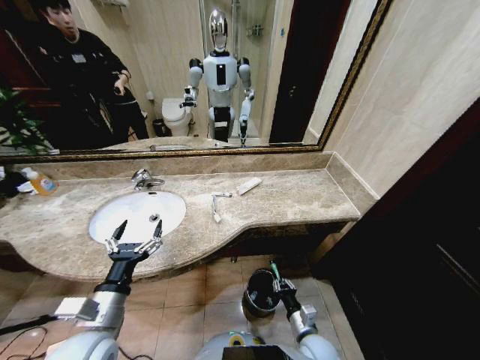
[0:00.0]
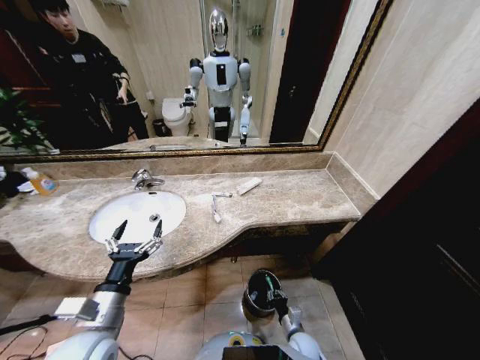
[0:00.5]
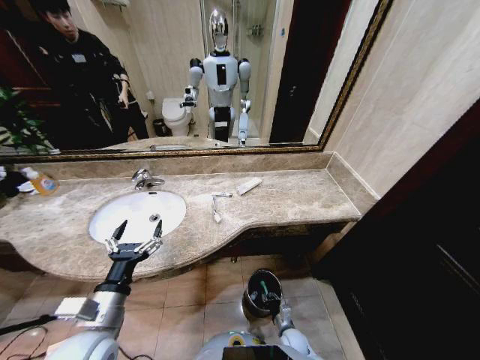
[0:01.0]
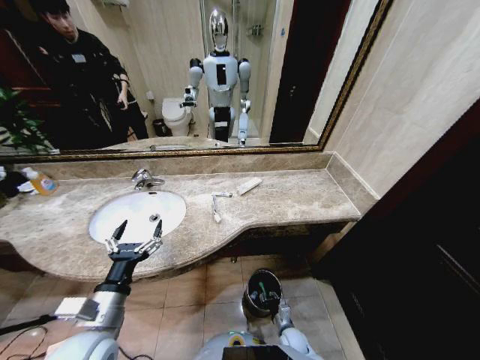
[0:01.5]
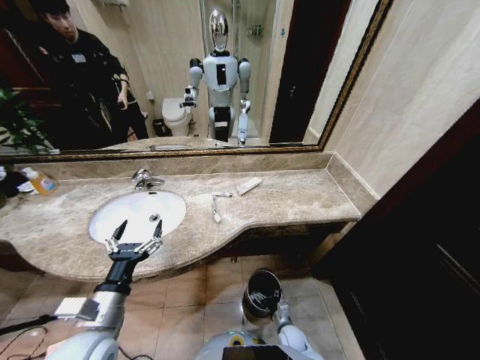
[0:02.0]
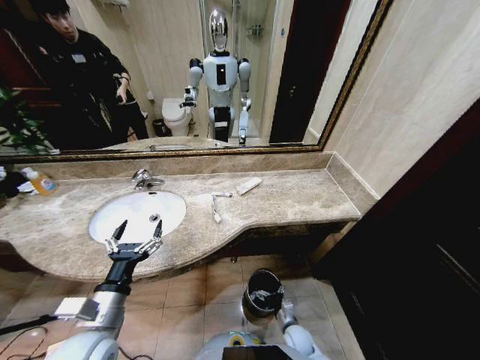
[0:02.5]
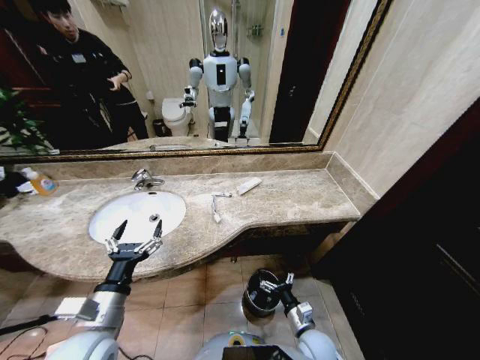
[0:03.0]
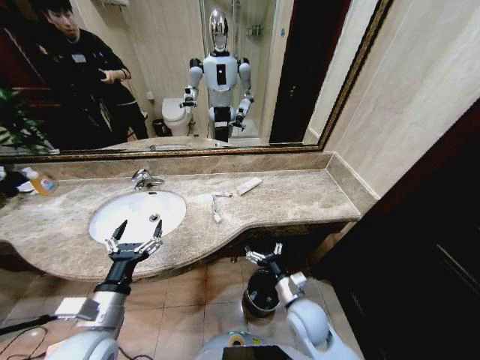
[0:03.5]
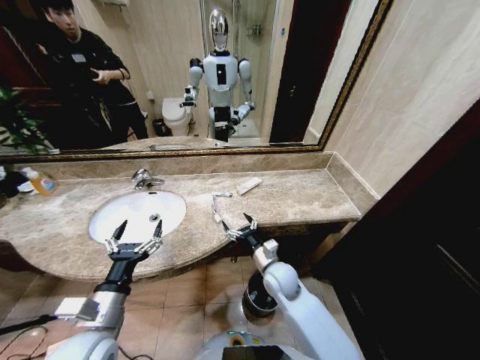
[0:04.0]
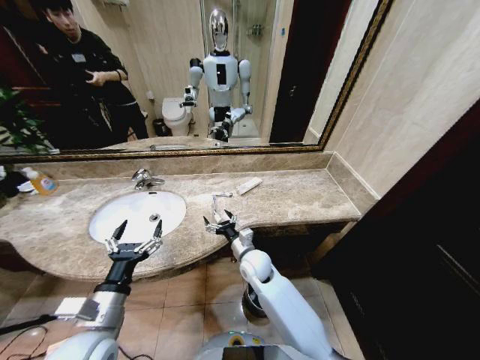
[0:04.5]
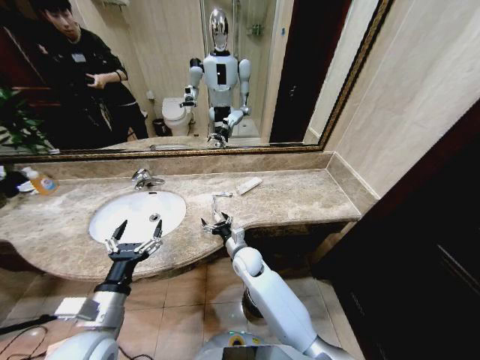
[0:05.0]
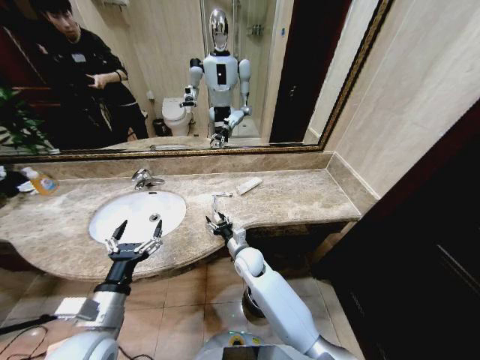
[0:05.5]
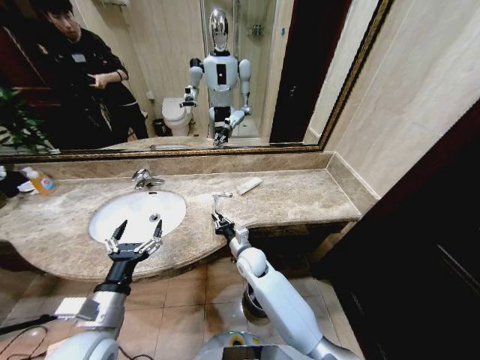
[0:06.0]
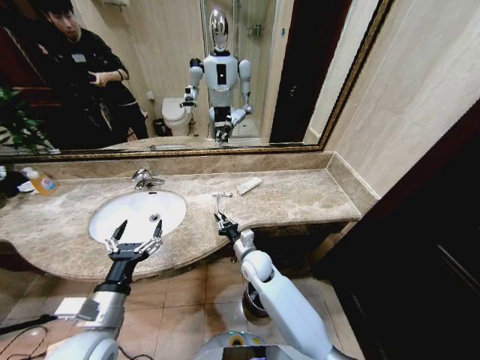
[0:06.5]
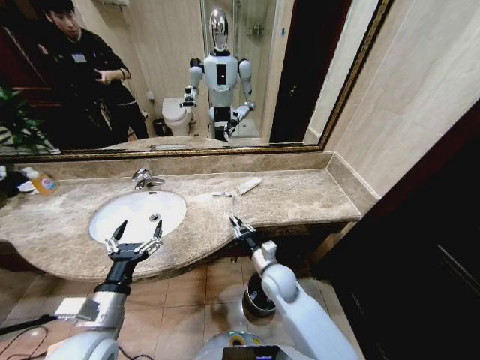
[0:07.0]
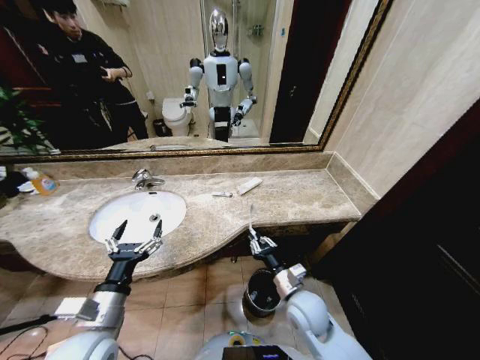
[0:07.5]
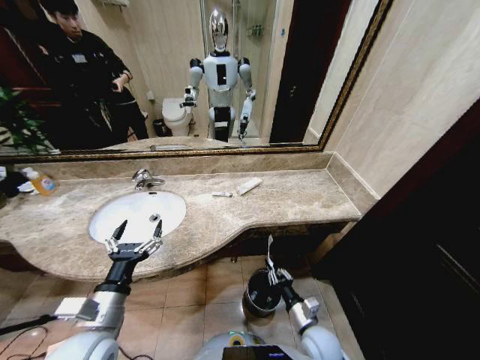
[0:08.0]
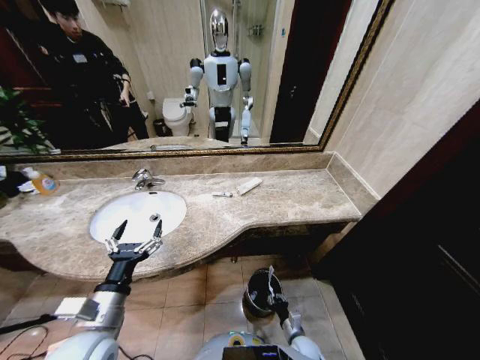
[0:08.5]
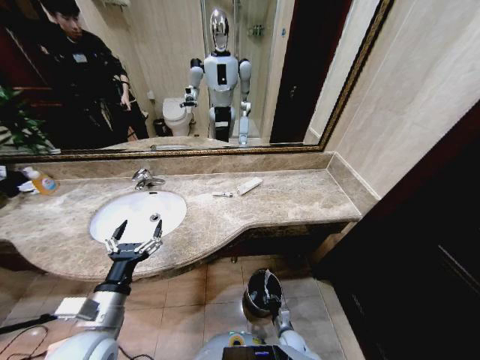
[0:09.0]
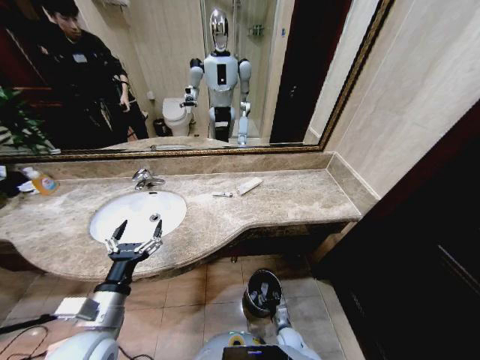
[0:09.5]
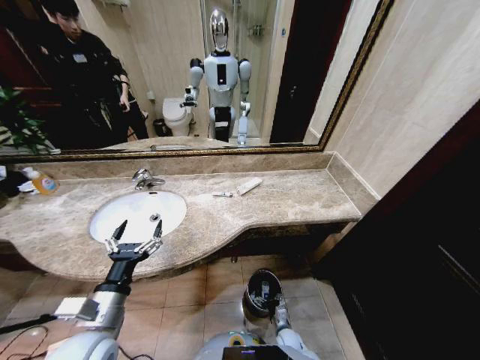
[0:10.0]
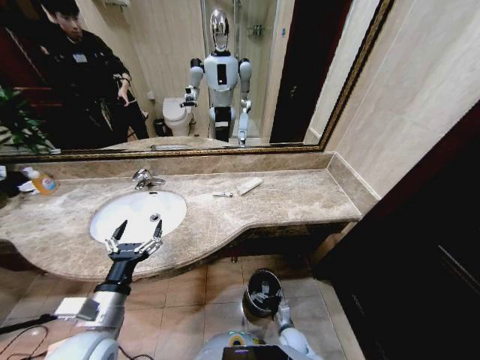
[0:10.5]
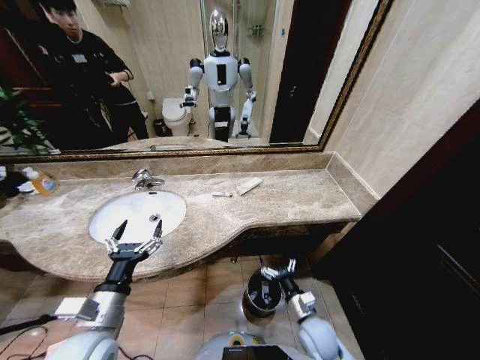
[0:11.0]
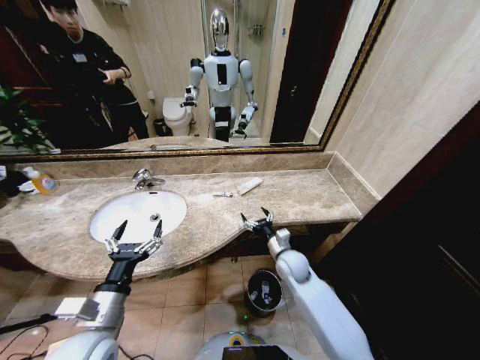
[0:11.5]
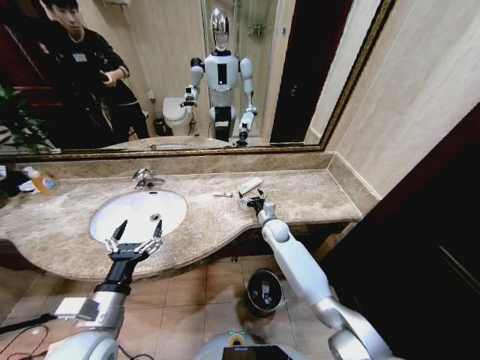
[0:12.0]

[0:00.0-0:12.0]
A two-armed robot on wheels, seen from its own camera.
Task of the whole recording: Pick up the trash from the sink and place it in the trash bin.
0:00.0 to 0:02.0: The right gripper goes some 15 cm downward, and opens up.
0:02.0 to 0:04.0: The right gripper goes some 30 cm upward.
0:04.0 to 0:06.0: The right gripper moves to the left and forward, about 10 cm, and closes its fingers.
0:06.0 to 0:08.0: The right gripper is displaced backward and to the right by roughly 25 cm.
0:08.0 to 0:10.0: The right gripper shifts approximately 20 cm downward, and opens.
0:10.0 to 0:12.0: The right gripper shifts roughly 40 cm upward and forward.

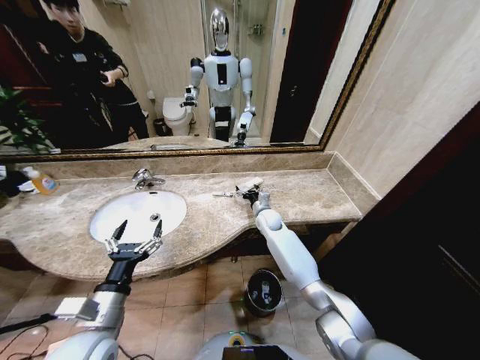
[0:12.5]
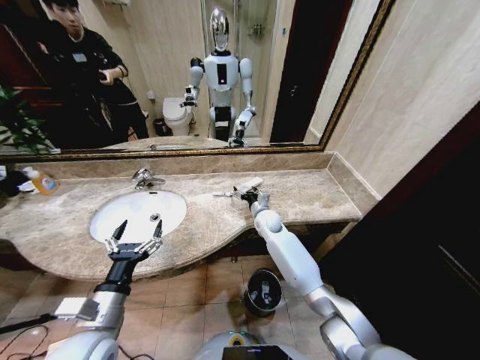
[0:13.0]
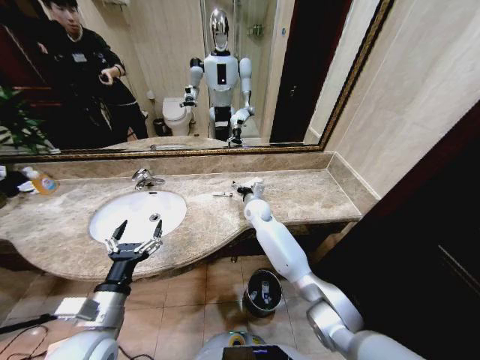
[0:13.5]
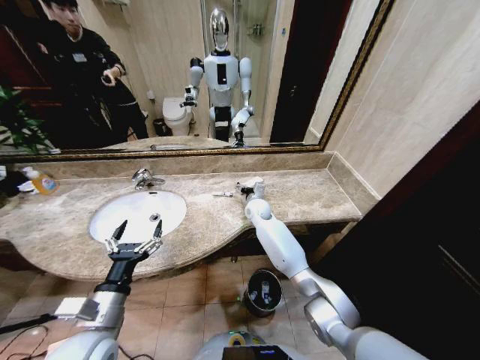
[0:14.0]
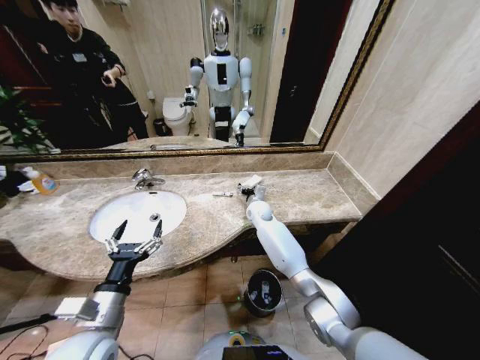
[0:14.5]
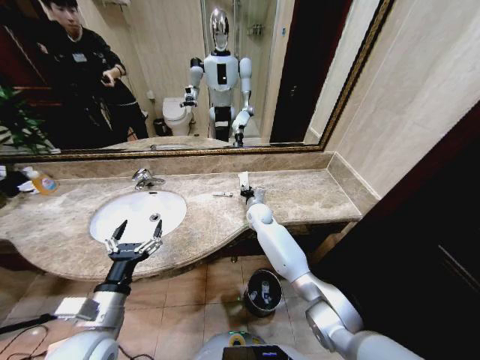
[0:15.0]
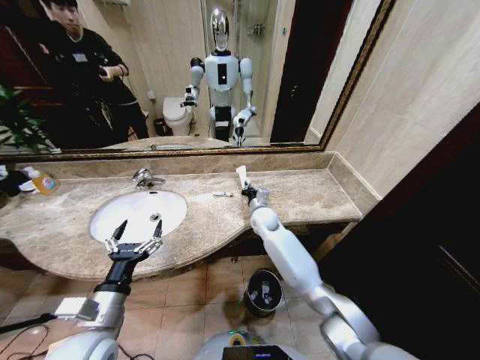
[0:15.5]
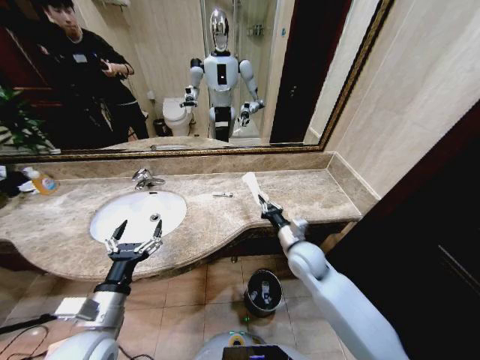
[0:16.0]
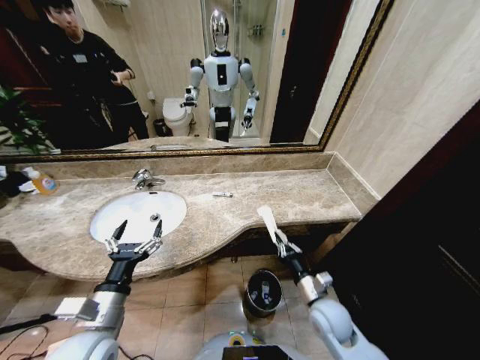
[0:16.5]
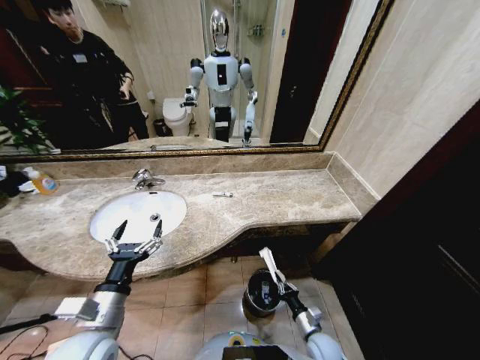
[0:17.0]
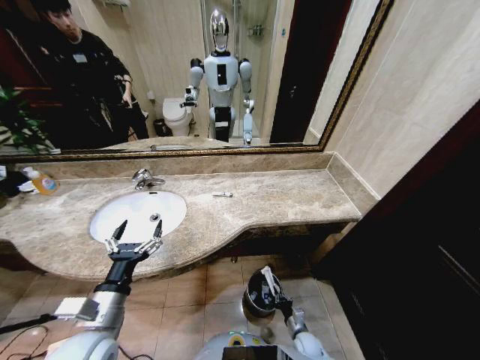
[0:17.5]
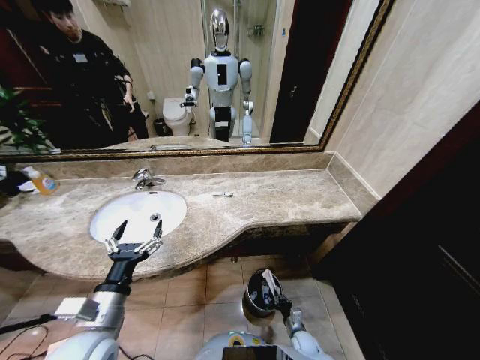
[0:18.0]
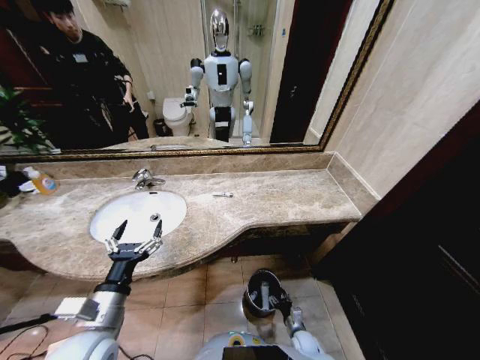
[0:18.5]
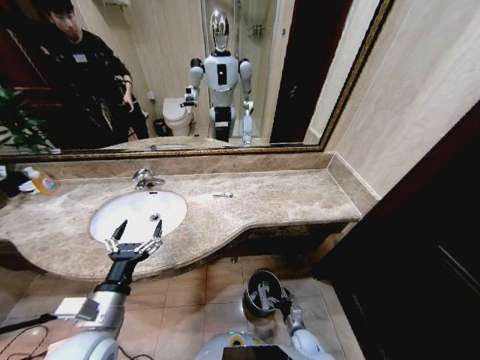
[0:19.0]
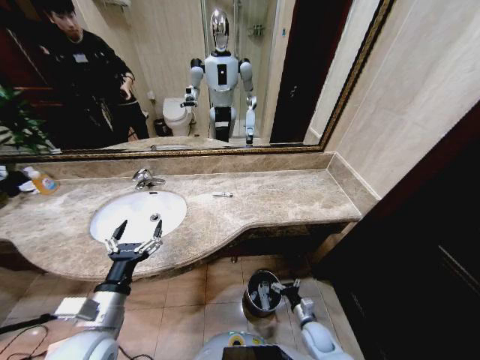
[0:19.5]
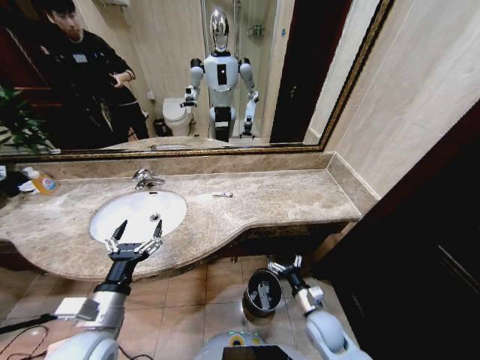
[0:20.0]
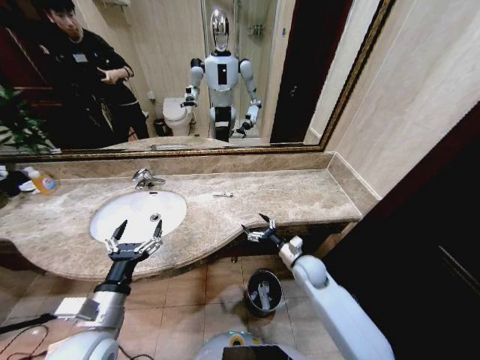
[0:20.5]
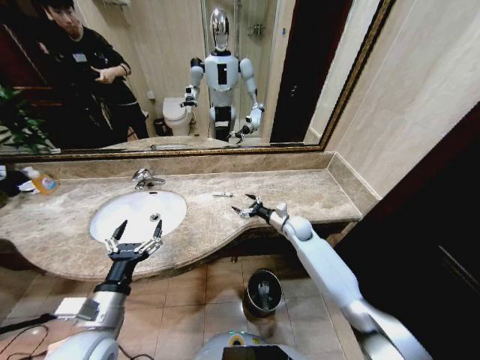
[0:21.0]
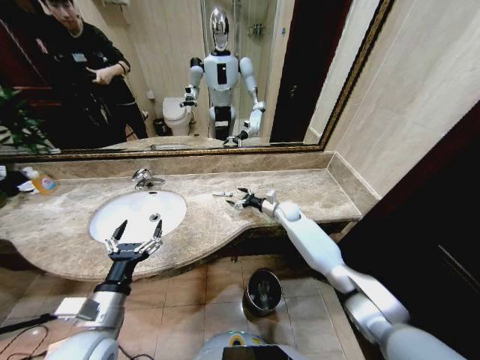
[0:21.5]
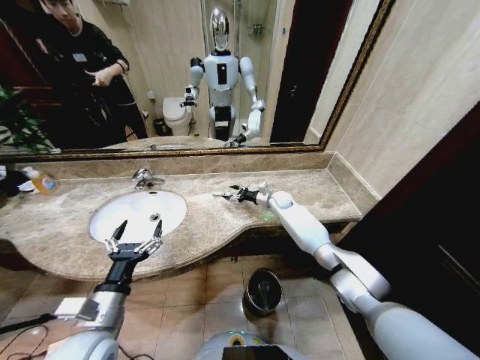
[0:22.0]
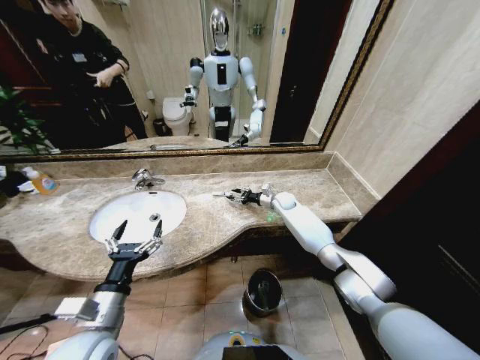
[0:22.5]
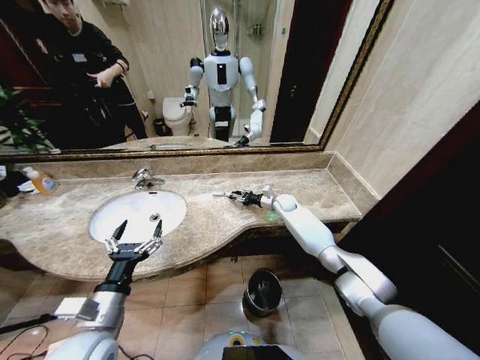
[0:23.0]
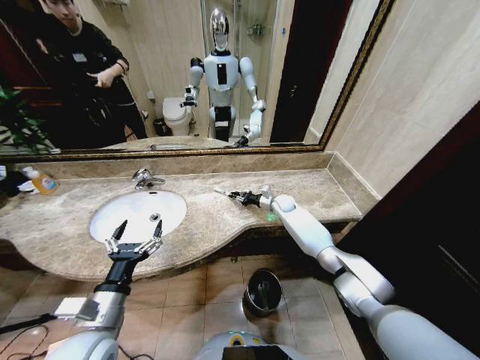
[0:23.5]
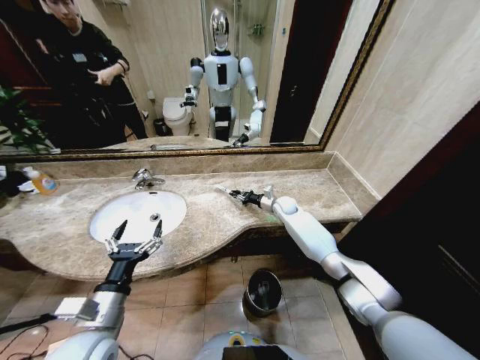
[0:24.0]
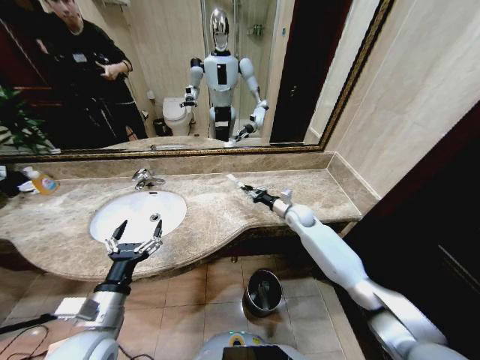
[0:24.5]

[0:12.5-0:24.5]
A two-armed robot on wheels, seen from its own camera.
Task of the whole recording: Pick up the trash from the sink and place it in the trash bin.
0:12.5 to 0:14.5: The right gripper ends up approximately 5 cm from where it was.
0:14.5 to 0:16.5: The right gripper goes roughly 35 cm backward and to the right, and closes.
0:16.5 to 0:18.5: The right gripper travels downward by some 30 cm, and opens up.
0:18.5 to 0:20.5: The right gripper moves upward and forward, some 35 cm, and opens its fingers.
0:20.5 to 0:22.5: The right gripper moves forward, roughly 25 cm, and closes its fingers.
0:22.5 to 0:24.5: The right gripper is displaced backward by approximately 10 cm, and closes its fingers.

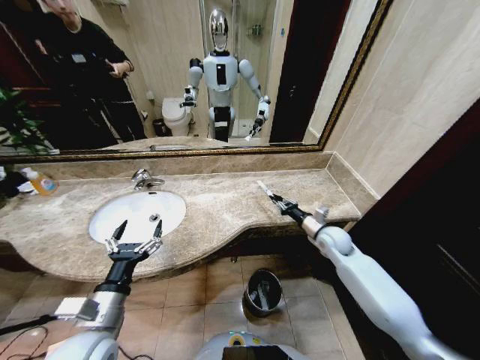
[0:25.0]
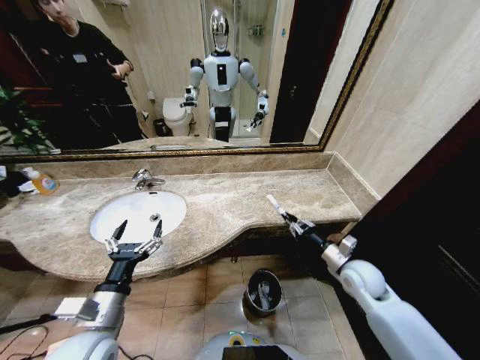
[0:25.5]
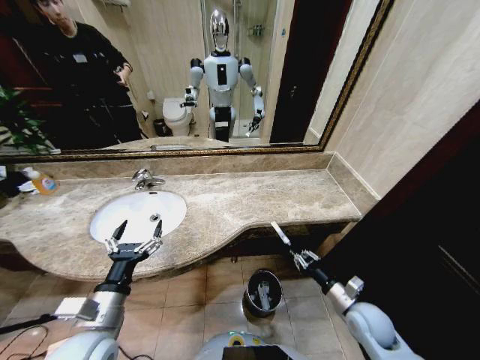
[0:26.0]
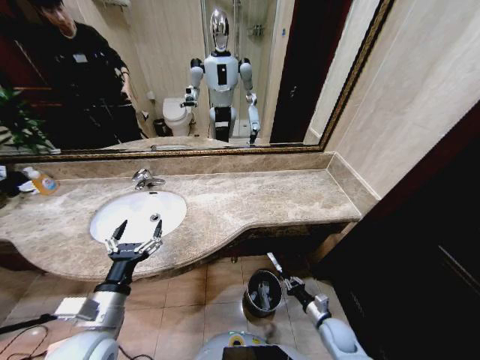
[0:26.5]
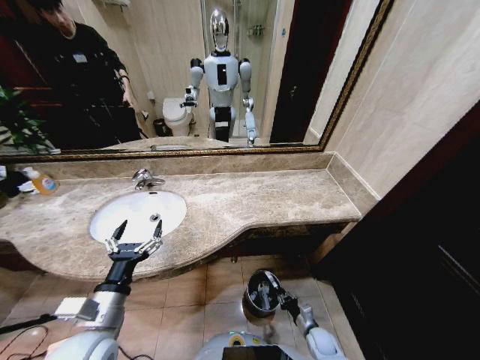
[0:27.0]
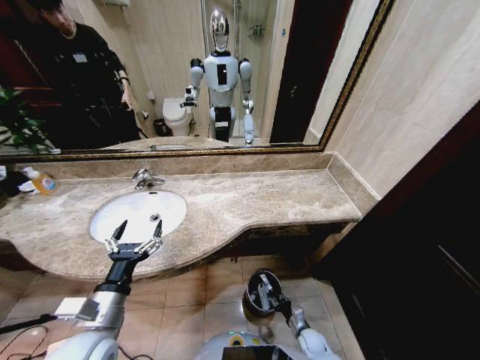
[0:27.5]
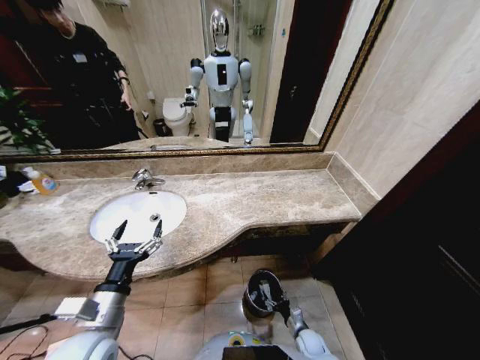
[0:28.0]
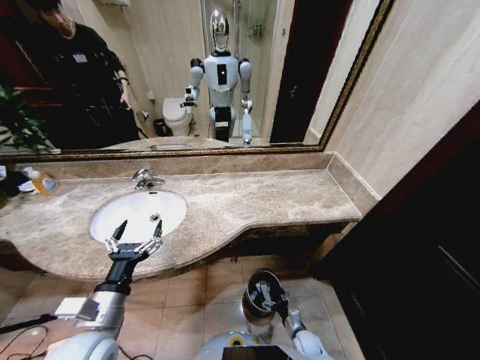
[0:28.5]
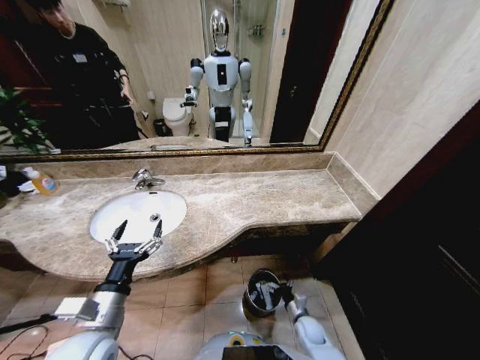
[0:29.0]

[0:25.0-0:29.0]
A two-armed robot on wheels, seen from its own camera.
Task of the whole recording: Pick up the trash from the sink and place it in the trash bin.
0:25.0 to 0:27.0: The right gripper goes roughly 40 cm downward and backward.
0:27.0 to 0:29.0: The right gripper moves roughly 5 cm, and opens its fingers.
